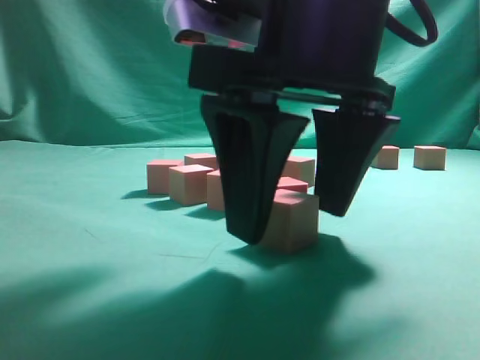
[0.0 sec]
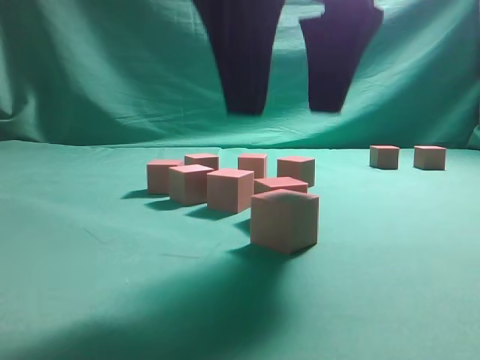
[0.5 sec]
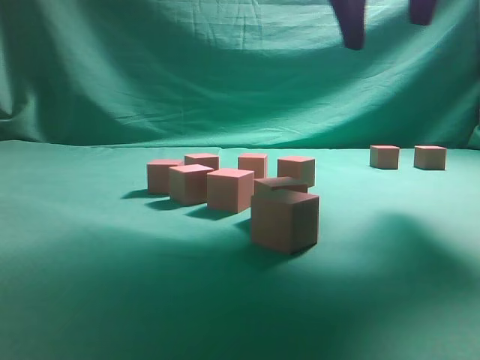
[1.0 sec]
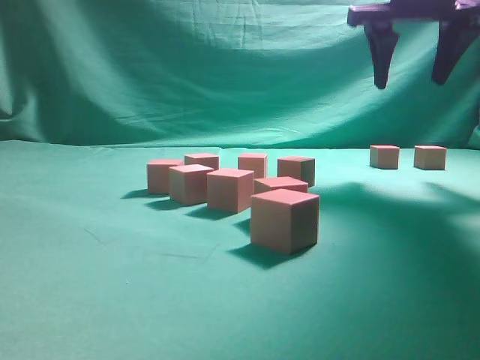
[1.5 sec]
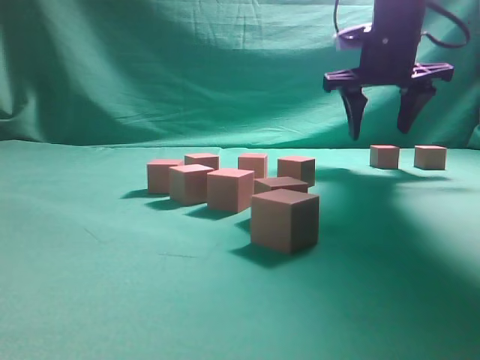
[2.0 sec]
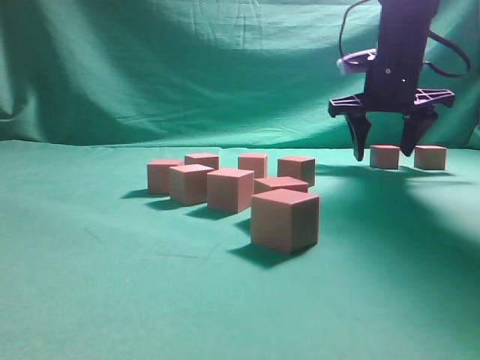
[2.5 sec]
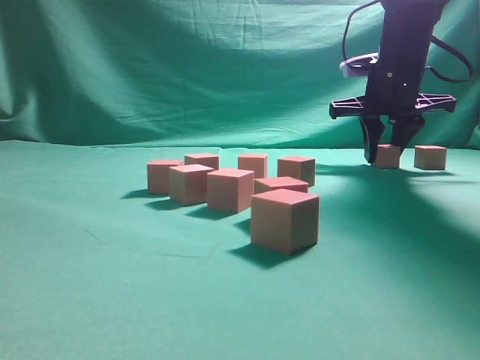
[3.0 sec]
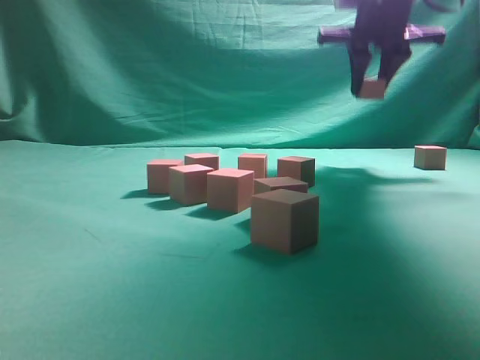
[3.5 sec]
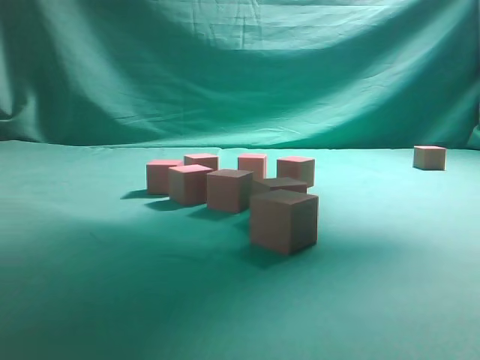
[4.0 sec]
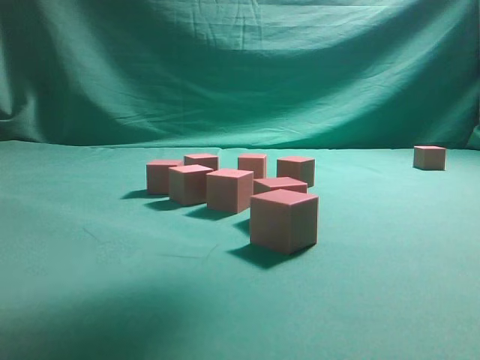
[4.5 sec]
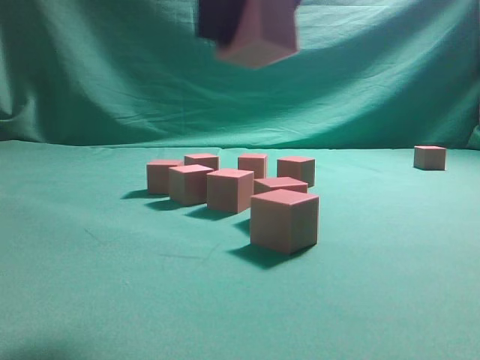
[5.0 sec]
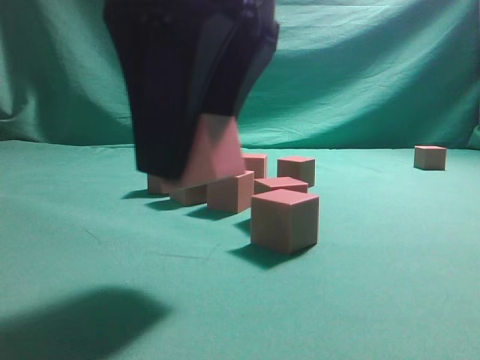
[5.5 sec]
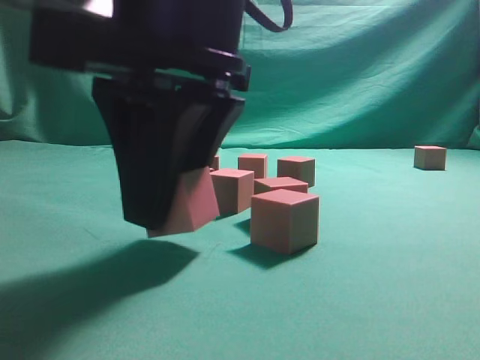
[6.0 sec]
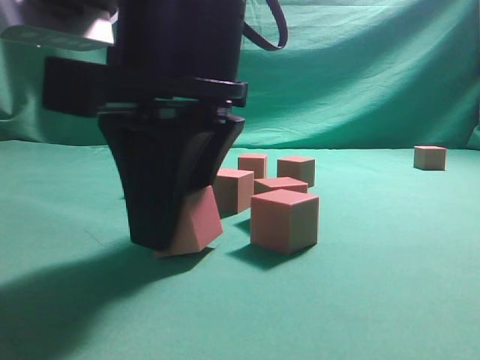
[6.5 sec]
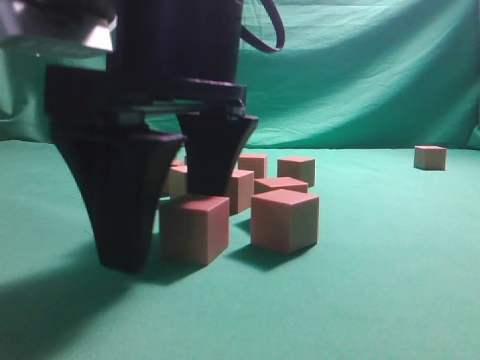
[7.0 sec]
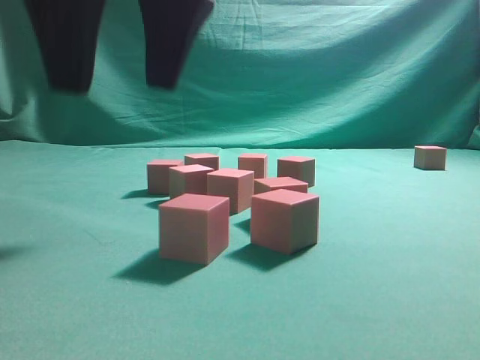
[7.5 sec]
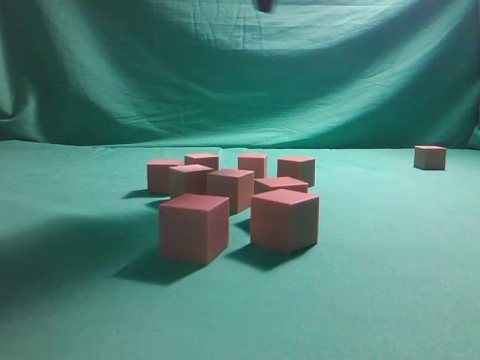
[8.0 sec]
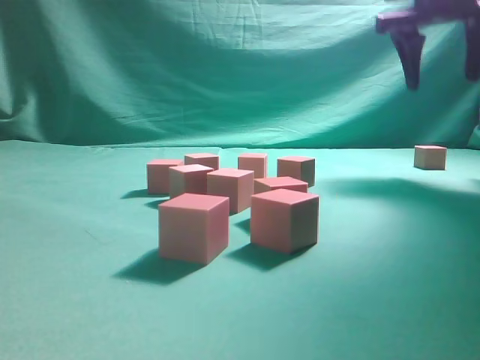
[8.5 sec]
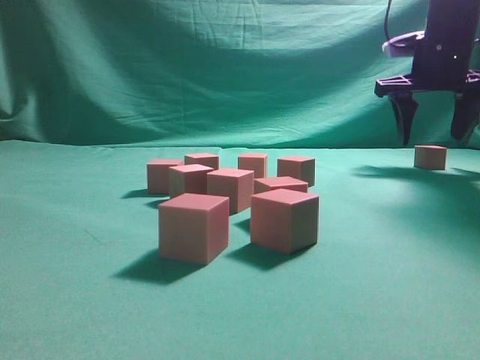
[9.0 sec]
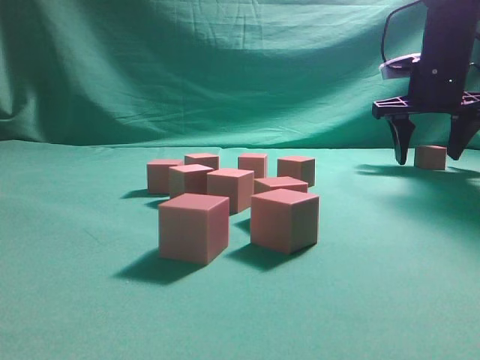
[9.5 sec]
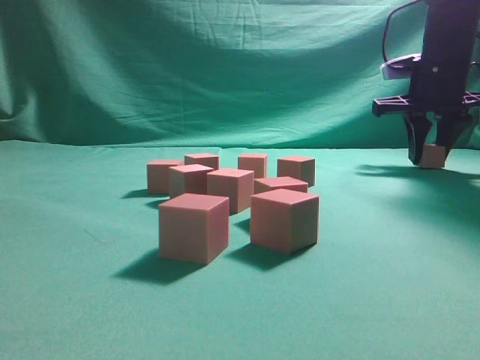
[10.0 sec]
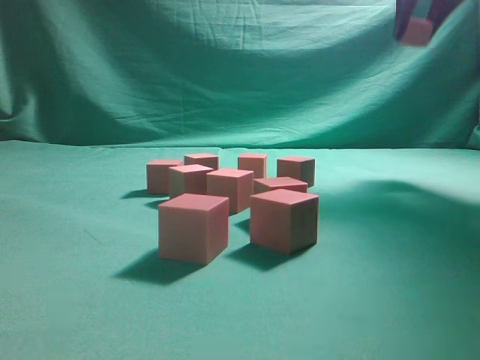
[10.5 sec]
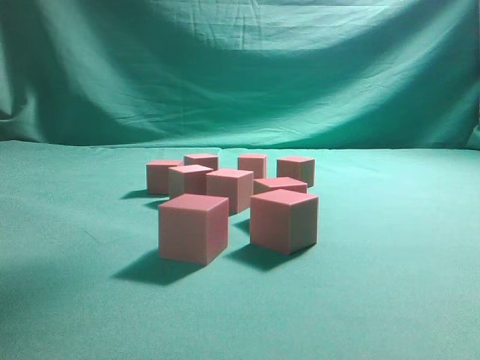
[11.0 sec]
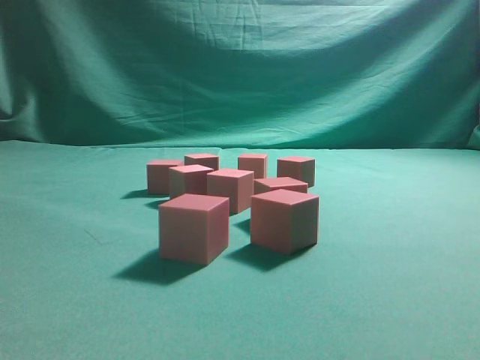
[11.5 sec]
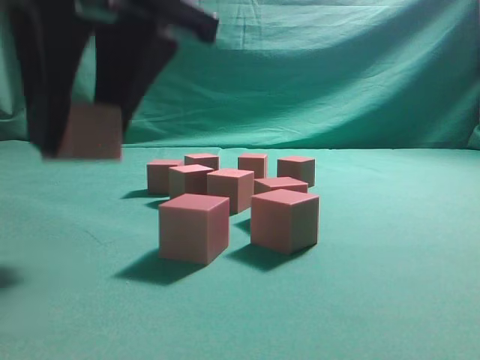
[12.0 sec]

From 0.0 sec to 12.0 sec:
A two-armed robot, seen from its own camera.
Task of the whole recording: pick up the multiple cubes in two columns one by one and place them in another position on the table.
Step, from 1.0 sec to 3.0 sec: Pick up the block on the table.
Step, from 3.5 sec to 7.5 sec: Place the block at the correct position to assemble the letter S.
Step, from 8.0 sec to 10.0 sec: Pick up the block on the table.
From 0.0 sec to 2.0 sec: The right gripper moves forward and to the right, roughly 30 cm.
From 2.0 sec to 4.0 sec: The right gripper goes roughly 20 cm upward, and closes up.
From 4.0 sec to 6.0 sec: The right gripper heads backward, downward and to the left, covering about 35 cm.
From 6.0 sec to 8.0 sec: The right gripper shifts some 20 cm upward, forward and to the right, and opens up.
From 8.0 sec to 10.0 sec: The right gripper travels to the right, downward and forward by some 30 cm, and closes.
From 10.0 sec to 12.0 sec: The right gripper goes about 40 cm to the left and backward.

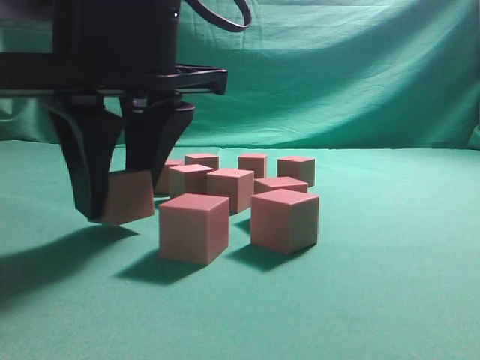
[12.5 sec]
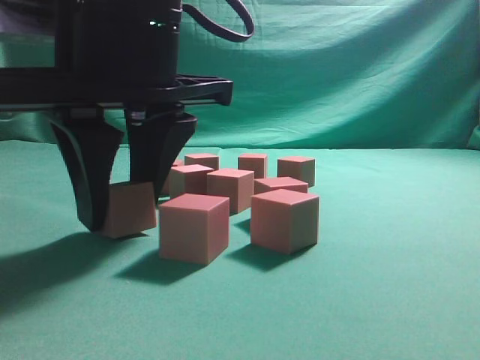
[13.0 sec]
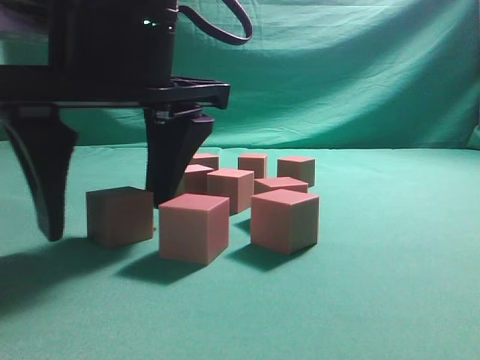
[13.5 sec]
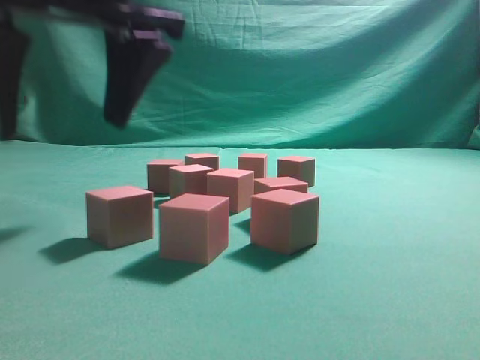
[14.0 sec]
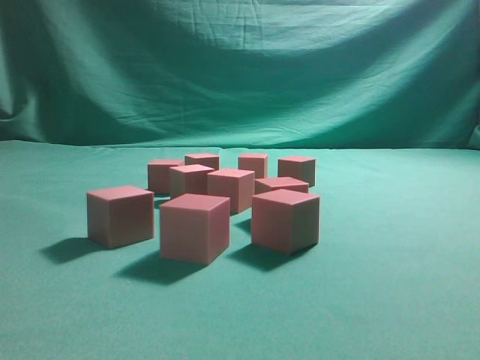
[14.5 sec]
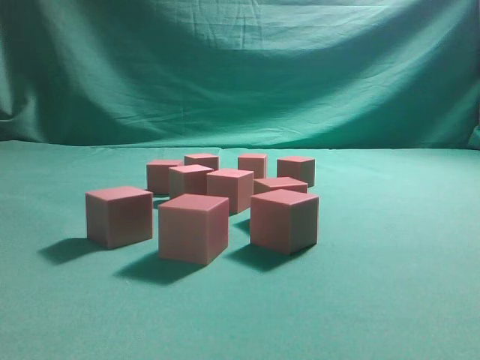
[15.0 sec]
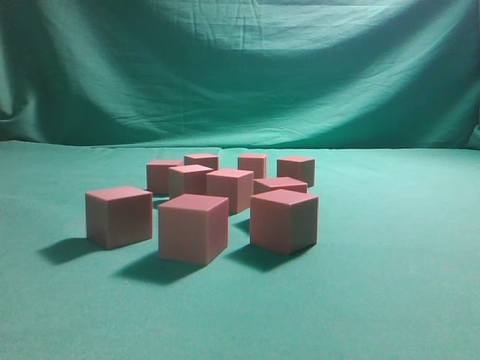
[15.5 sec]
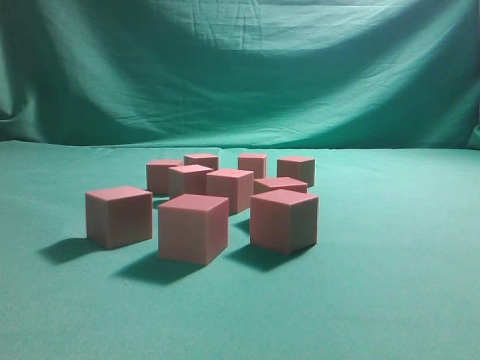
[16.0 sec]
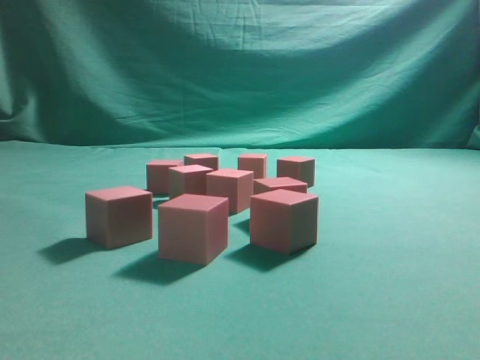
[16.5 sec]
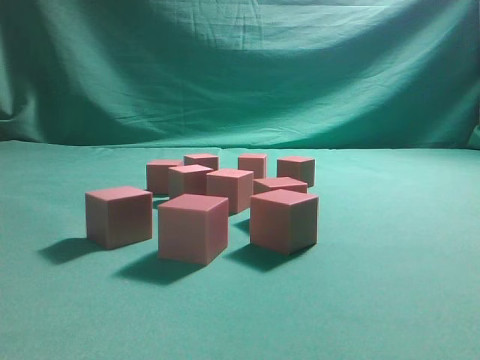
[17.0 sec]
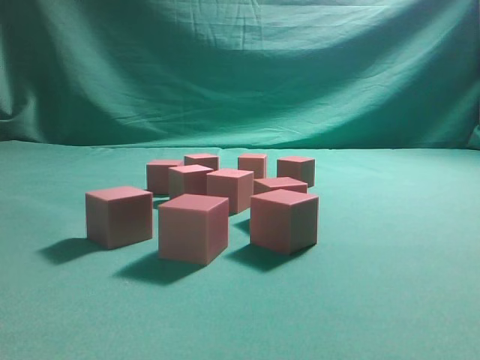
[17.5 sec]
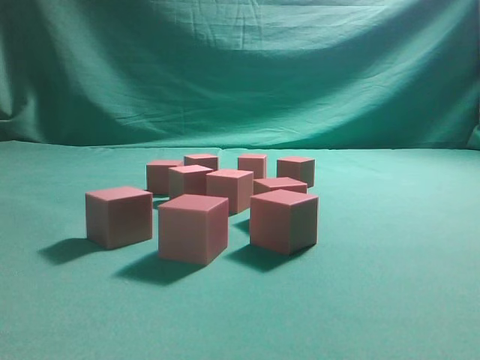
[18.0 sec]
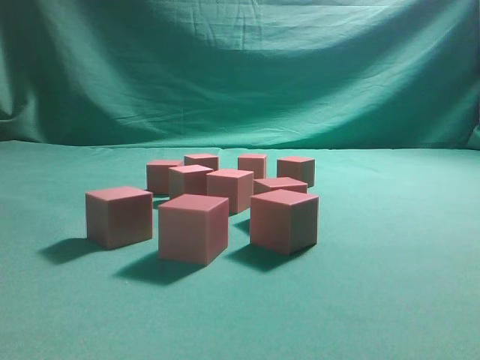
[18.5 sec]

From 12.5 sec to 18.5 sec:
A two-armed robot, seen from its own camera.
Task of the whole recording: pick up the multiple cubes in two columns one by one and place them in another position on the table.
From 12.5 sec to 14.5 sec: The right gripper goes about 20 cm upward, and closes up.
